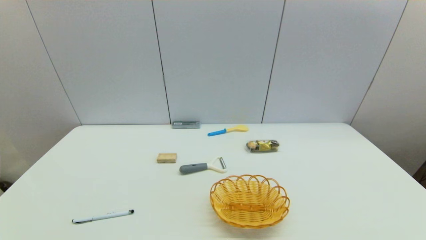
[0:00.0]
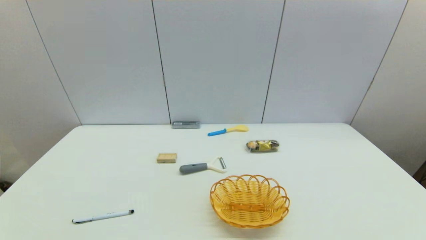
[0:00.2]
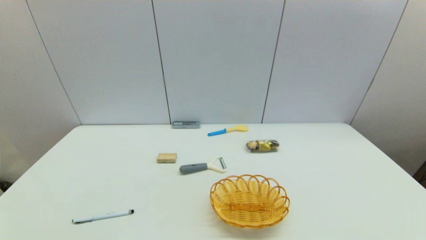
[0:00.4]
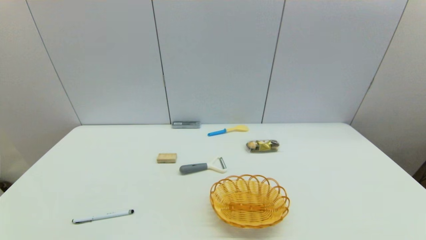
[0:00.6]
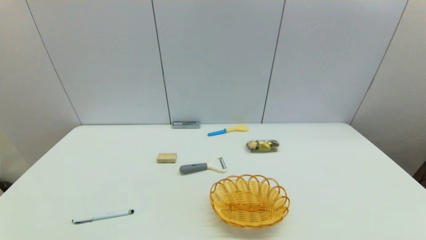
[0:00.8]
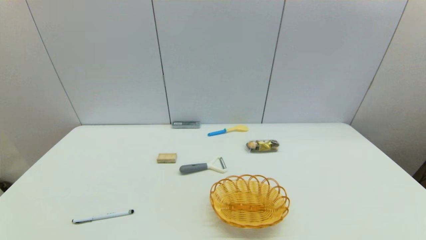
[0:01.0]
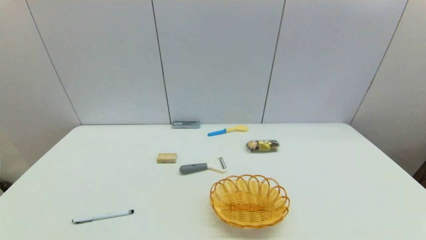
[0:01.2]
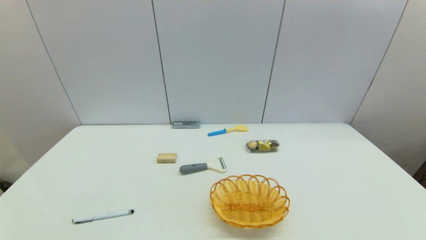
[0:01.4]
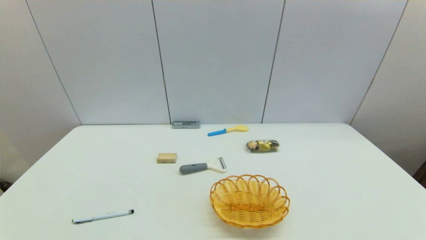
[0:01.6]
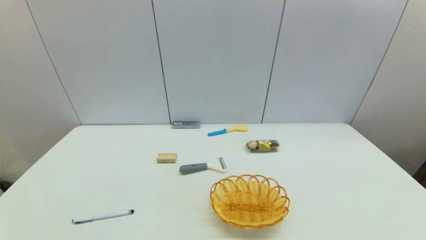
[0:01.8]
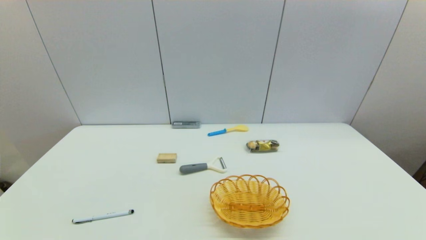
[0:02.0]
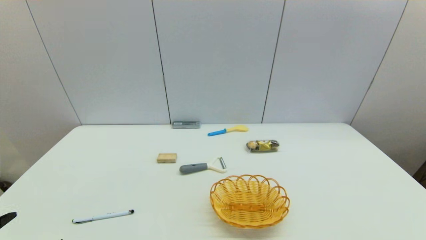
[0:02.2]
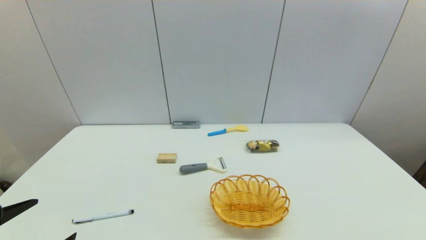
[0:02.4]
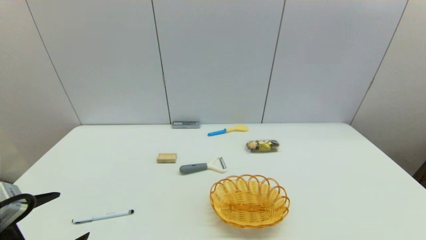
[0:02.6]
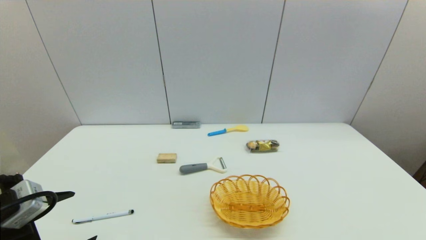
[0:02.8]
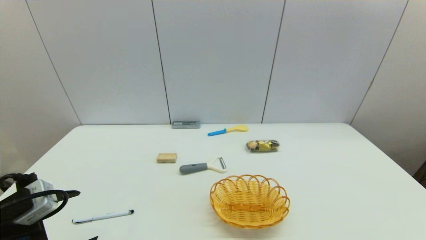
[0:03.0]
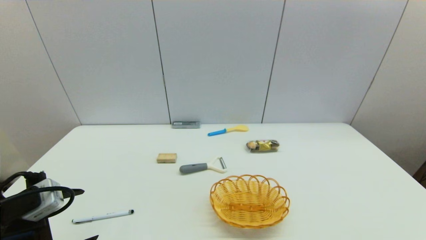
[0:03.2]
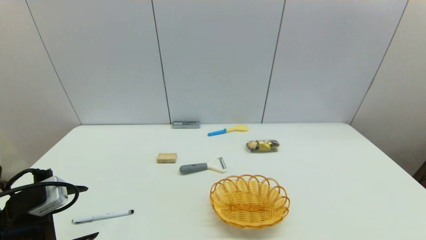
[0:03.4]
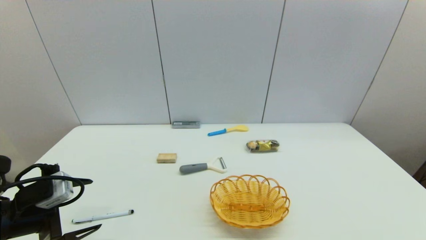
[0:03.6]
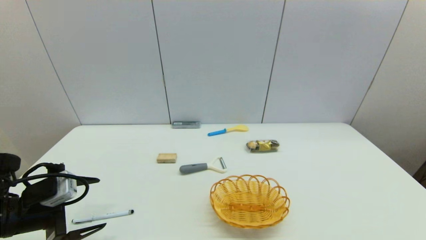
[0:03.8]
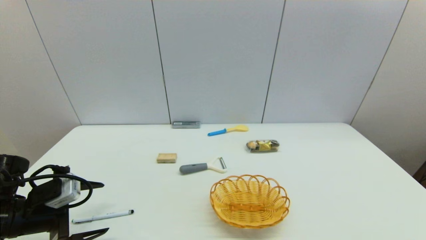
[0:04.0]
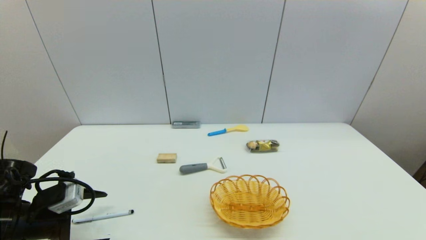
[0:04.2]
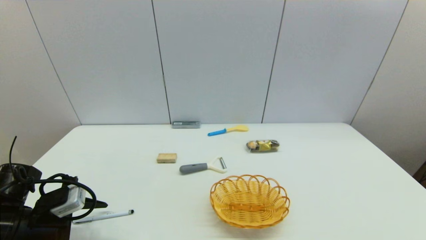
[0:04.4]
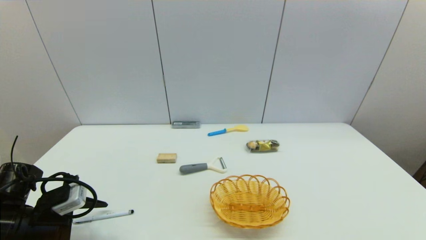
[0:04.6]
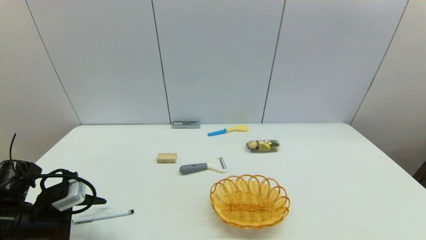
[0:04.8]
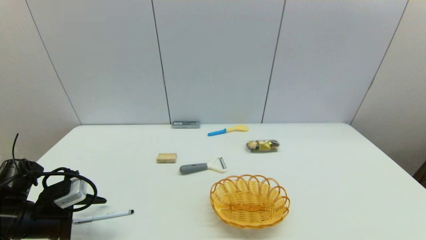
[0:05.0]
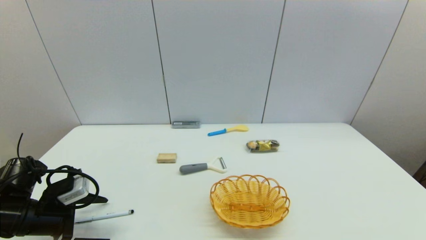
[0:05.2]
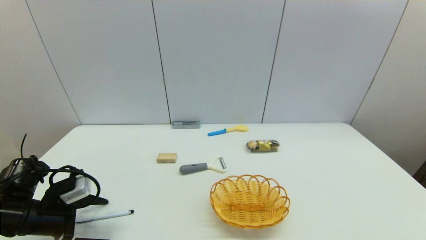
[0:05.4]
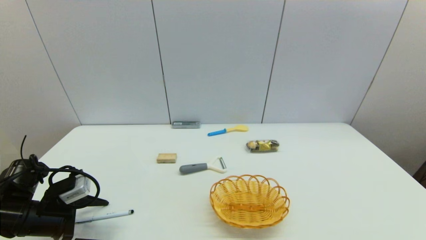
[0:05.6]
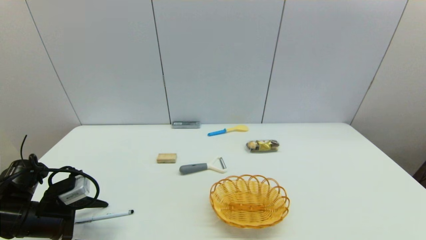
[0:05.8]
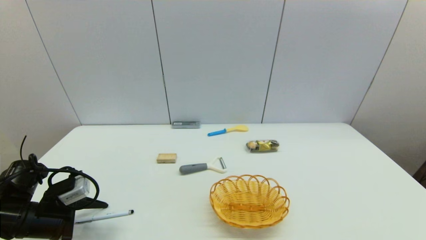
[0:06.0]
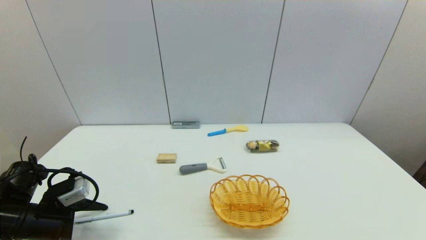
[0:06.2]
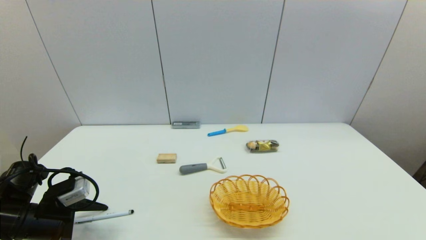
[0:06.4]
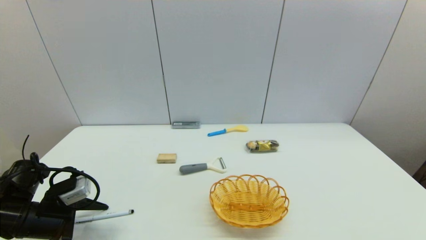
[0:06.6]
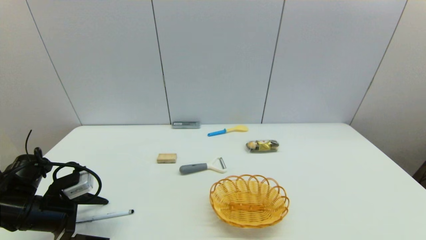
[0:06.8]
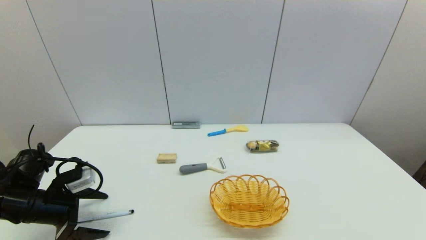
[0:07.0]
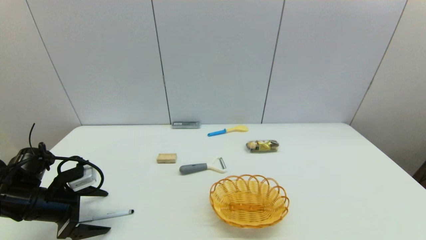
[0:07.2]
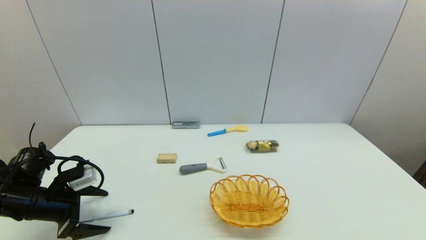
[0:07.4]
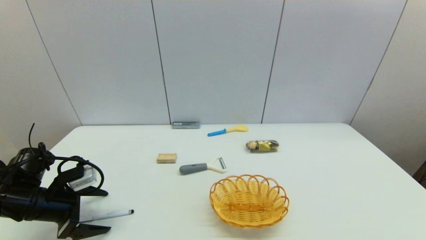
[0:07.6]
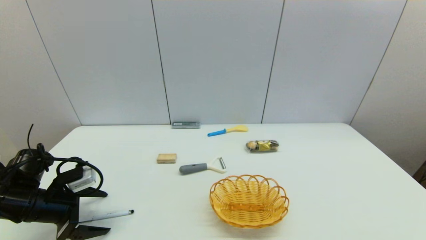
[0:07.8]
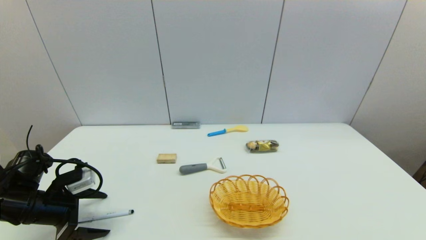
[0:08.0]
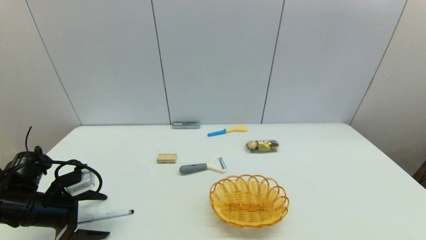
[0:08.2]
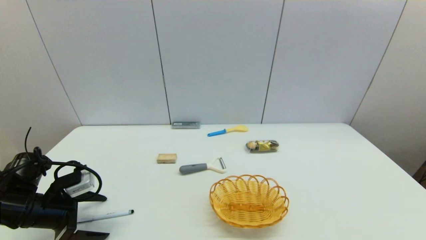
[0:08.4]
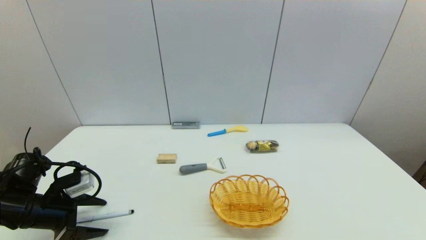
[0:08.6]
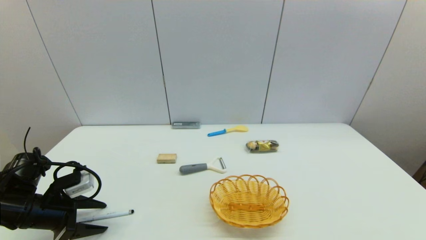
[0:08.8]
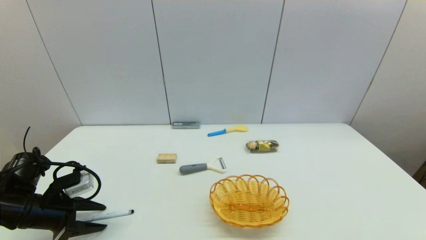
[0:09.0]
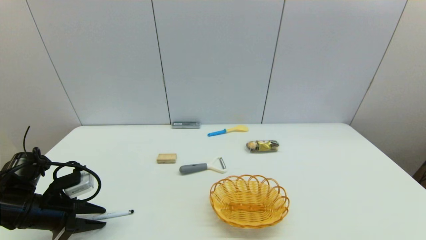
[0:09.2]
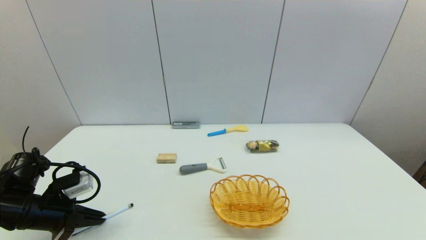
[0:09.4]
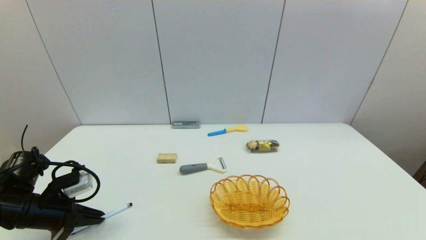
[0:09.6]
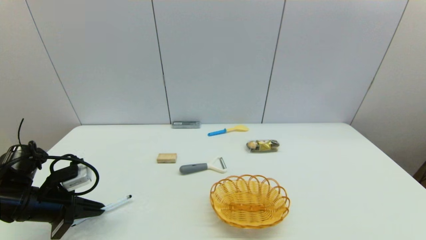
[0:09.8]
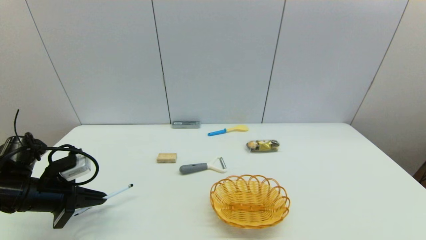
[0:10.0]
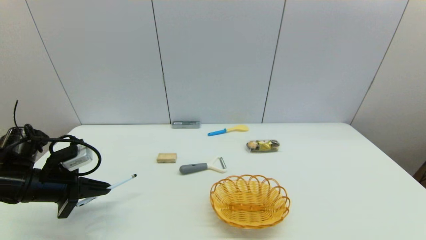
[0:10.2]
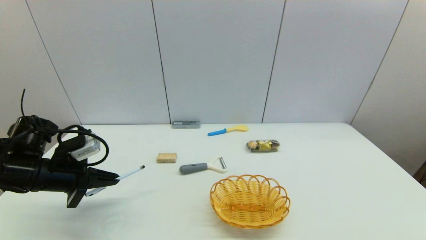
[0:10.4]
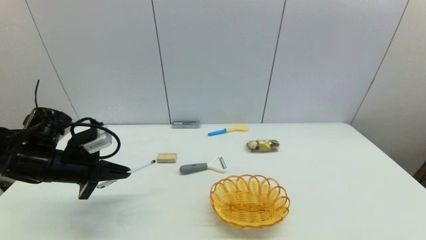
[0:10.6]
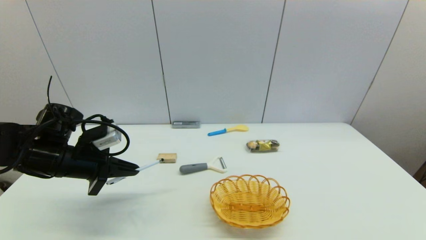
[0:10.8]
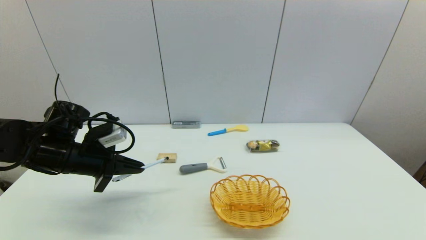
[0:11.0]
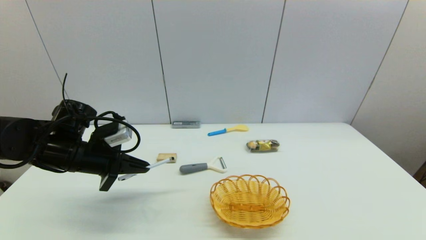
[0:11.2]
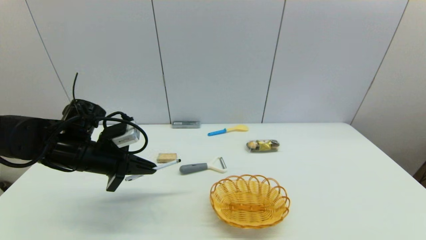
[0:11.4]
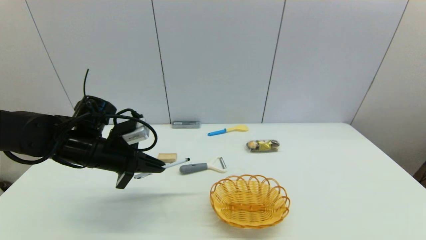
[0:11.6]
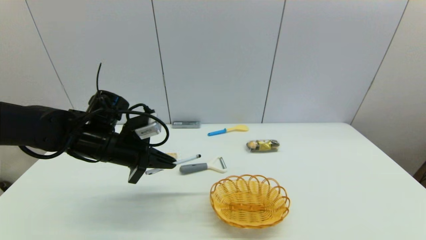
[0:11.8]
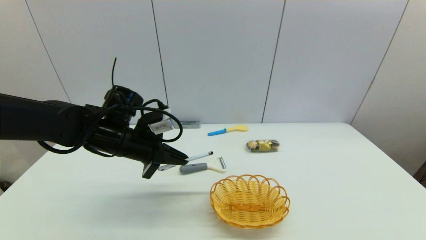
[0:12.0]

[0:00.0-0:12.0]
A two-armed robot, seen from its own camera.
Task of the whole recording: put the pen in the designated position.
Step, 0:02.2 to 0:09.4: Grasp the sign pen with left gripper.
0:01.6 to 0:03.0: The left gripper heads forward, covering some 15 cm.
0:03.0 to 0:04.4: The left gripper goes about 10 cm forward and downward.
0:04.4 to 0:07.6: The grippers make only small movements.
0:07.6 to 0:09.0: The left gripper closes its fingers.
0:09.0 to 0:10.4: The left gripper is displaced upward by roughly 5 cm, and closes.
0:10.4 to 0:12.0: The left gripper goes about 15 cm to the right.

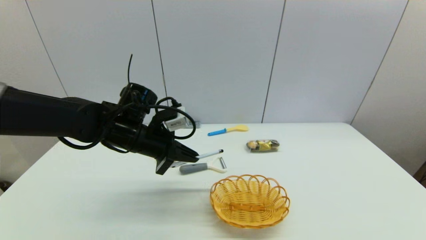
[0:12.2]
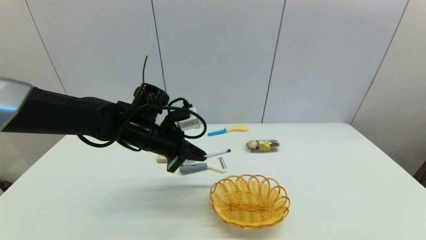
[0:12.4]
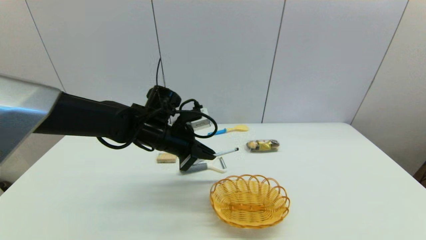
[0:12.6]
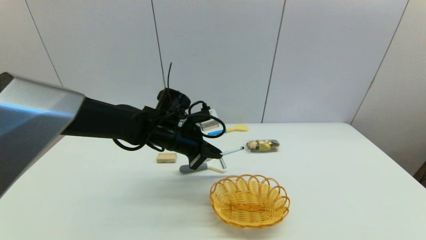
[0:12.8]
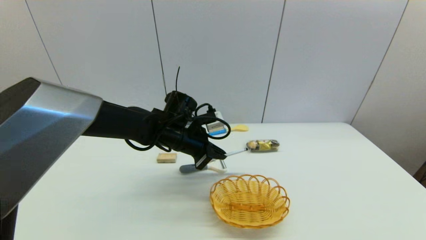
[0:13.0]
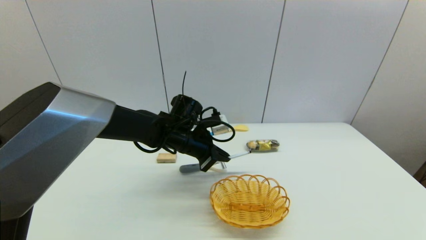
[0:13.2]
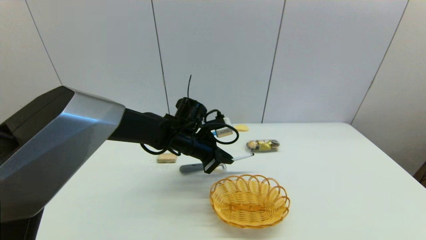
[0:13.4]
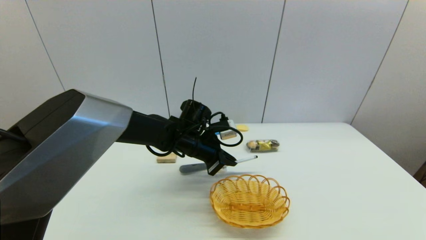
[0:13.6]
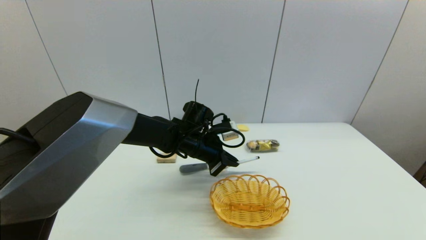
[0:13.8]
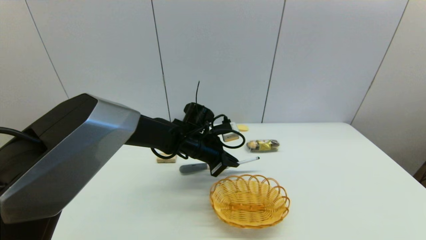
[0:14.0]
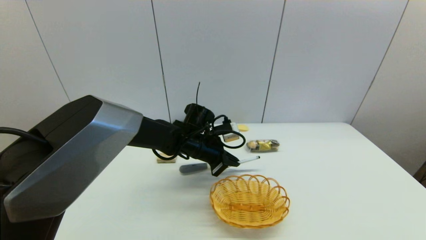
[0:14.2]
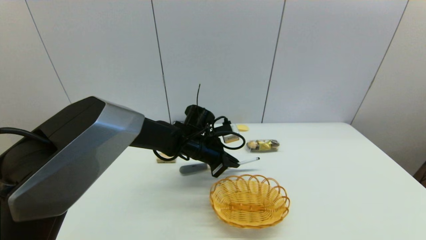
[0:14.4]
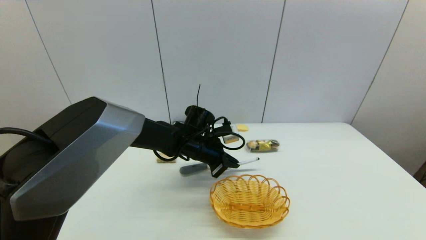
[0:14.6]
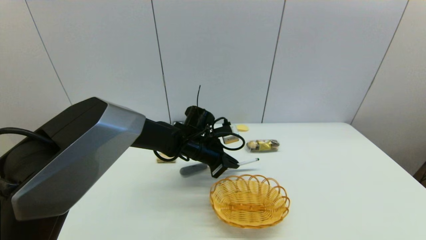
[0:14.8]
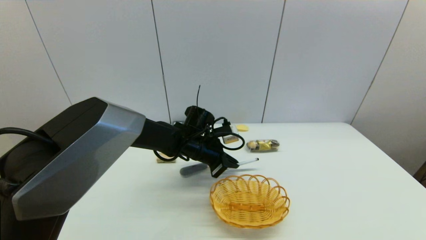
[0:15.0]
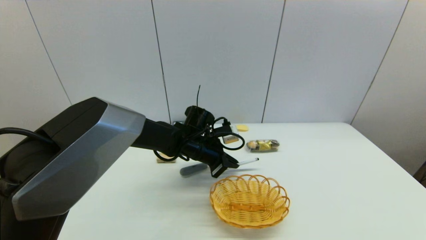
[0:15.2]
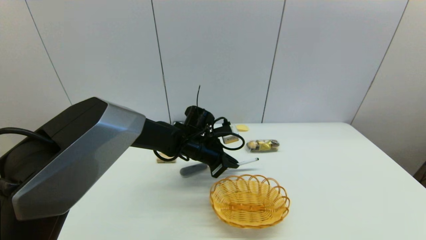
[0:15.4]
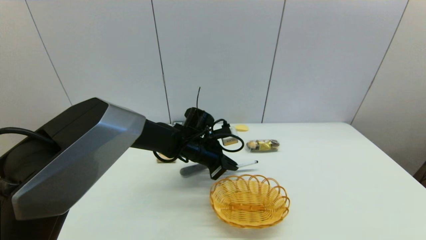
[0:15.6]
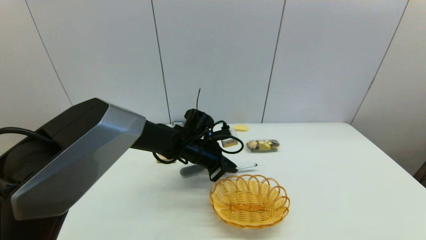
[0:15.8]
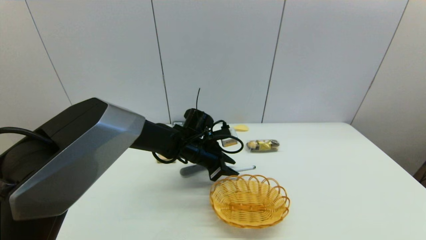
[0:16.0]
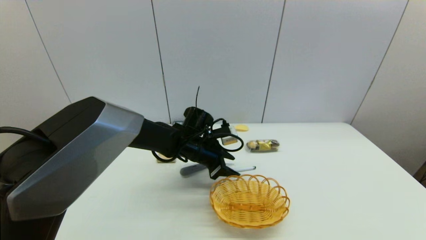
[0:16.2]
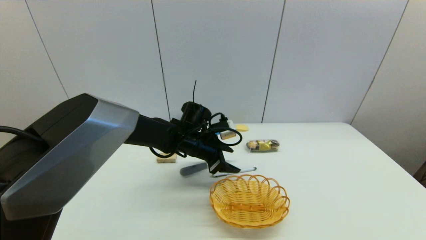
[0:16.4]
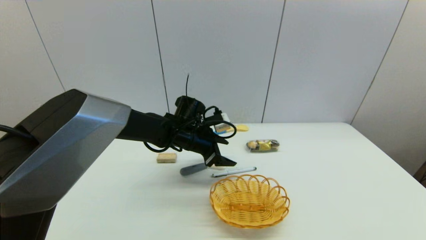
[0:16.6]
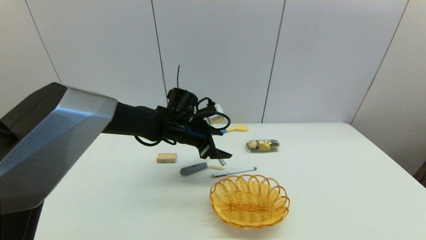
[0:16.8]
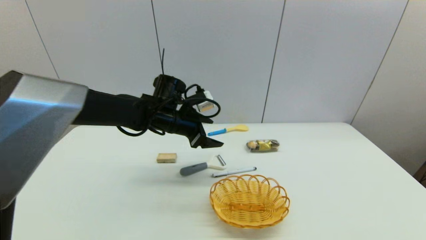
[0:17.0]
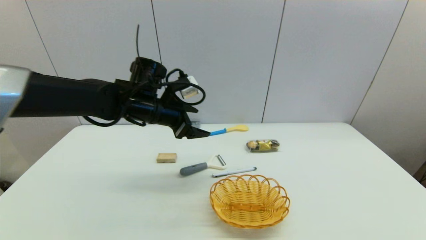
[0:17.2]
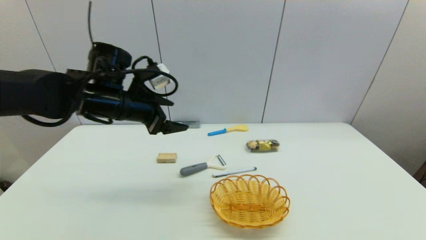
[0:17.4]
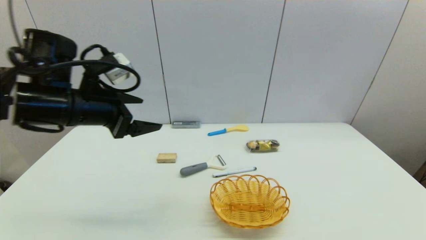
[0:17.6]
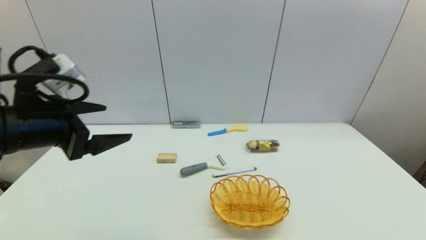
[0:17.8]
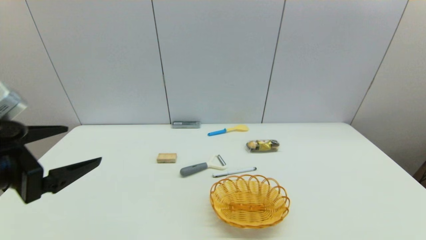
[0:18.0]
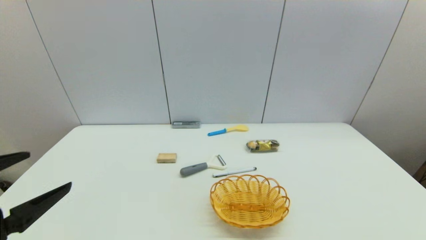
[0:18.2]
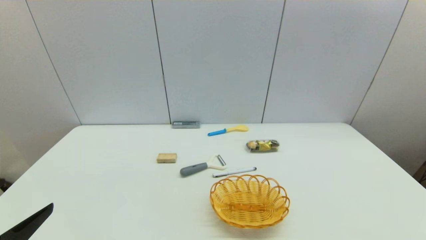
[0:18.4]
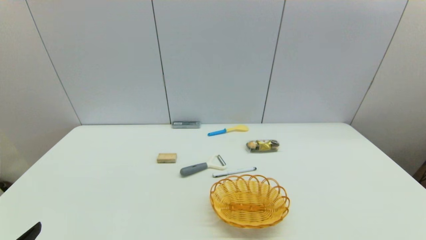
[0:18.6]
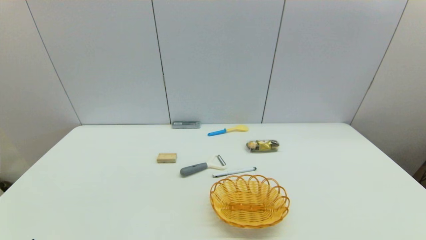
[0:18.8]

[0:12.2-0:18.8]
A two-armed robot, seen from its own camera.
Task of the whole recording: put the pen in the designated position.
Step, 0:12.2 to 0:16.2: Place the sign pen on the table with left gripper.
0:12.2 to 0:13.8: The left gripper is displaced to the right and downward by about 15 cm.
0:13.8 to 0:15.4: The grippers move only a little.
0:15.4 to 0:17.2: The left gripper is displaced upward and to the left by roughly 15 cm, and opens up.
0:17.2 to 0:18.8: The left gripper heads backward and to the left, covering some 40 cm.
